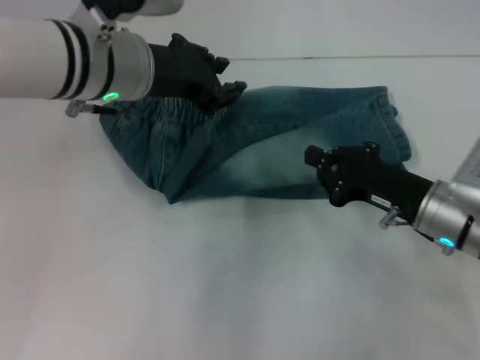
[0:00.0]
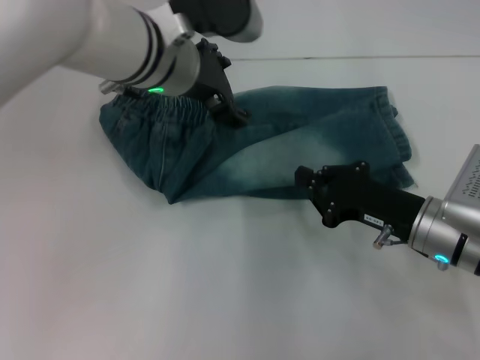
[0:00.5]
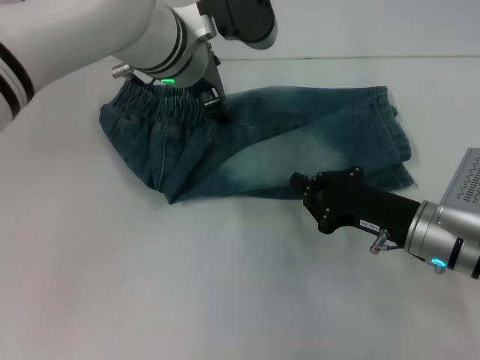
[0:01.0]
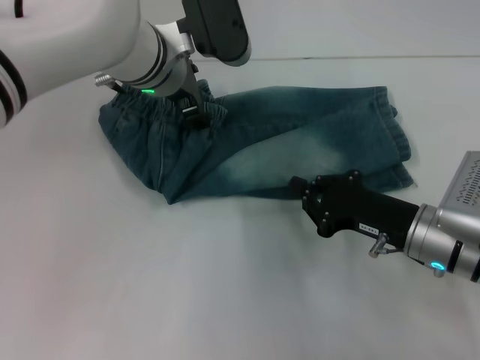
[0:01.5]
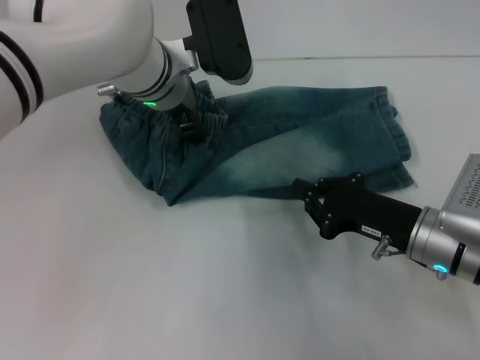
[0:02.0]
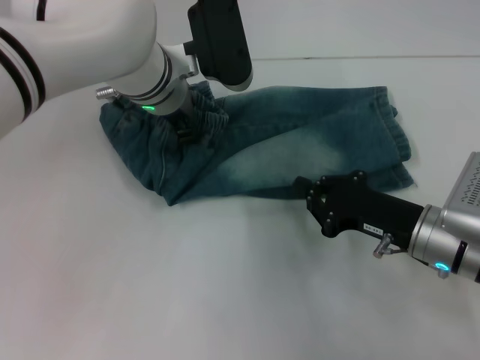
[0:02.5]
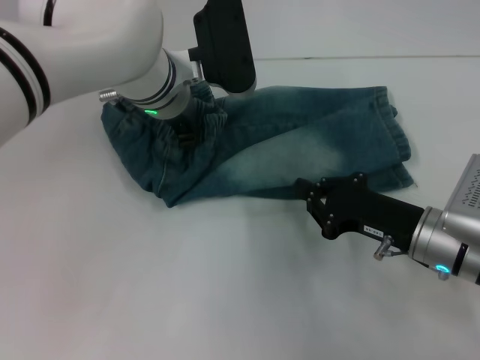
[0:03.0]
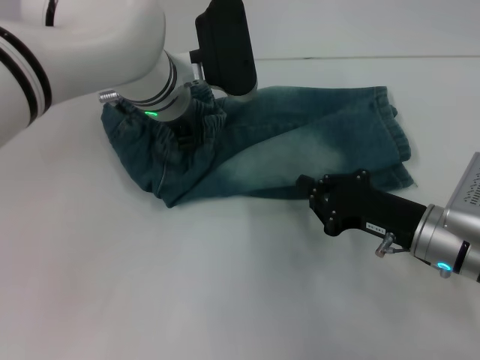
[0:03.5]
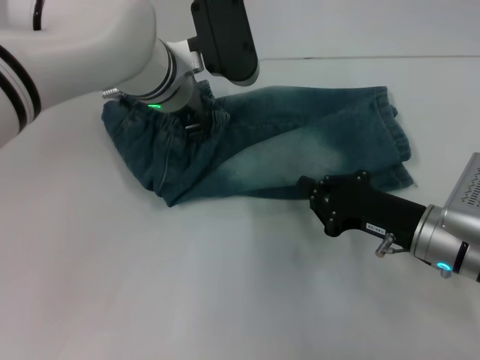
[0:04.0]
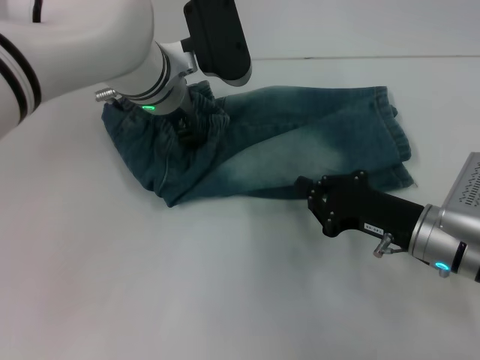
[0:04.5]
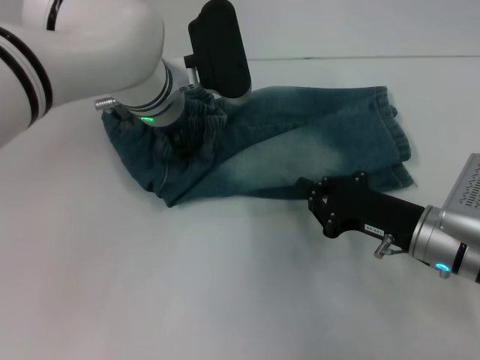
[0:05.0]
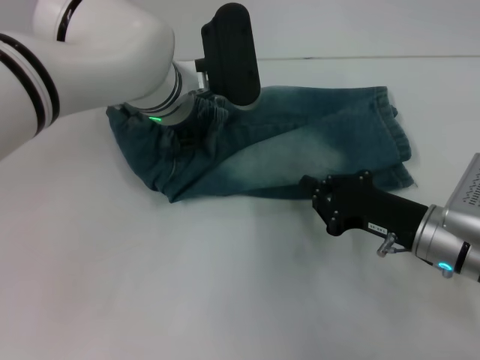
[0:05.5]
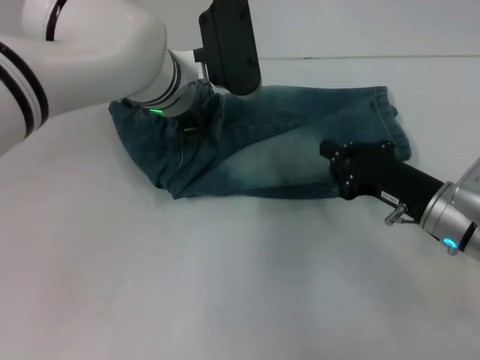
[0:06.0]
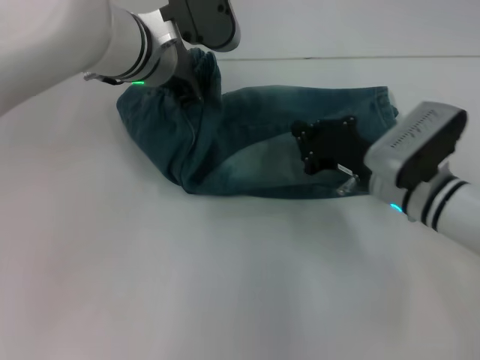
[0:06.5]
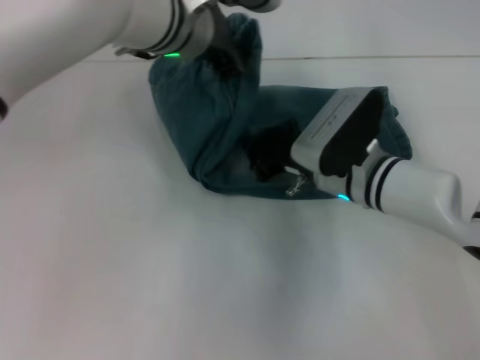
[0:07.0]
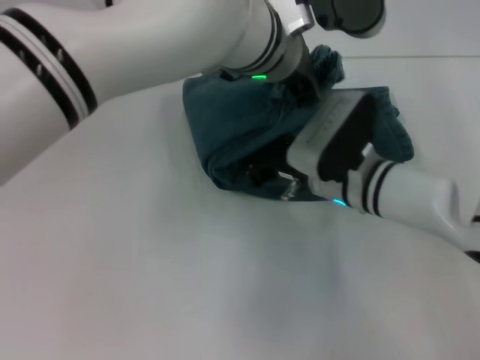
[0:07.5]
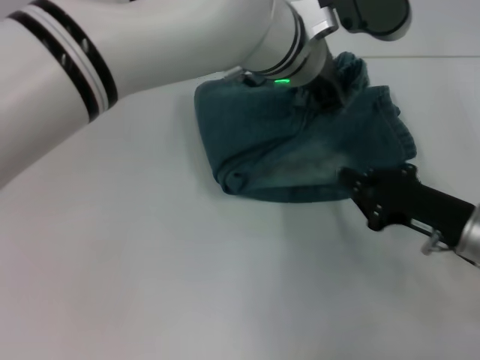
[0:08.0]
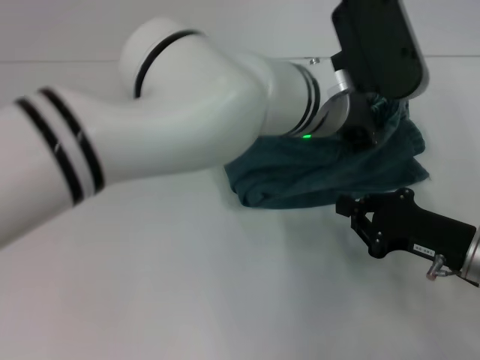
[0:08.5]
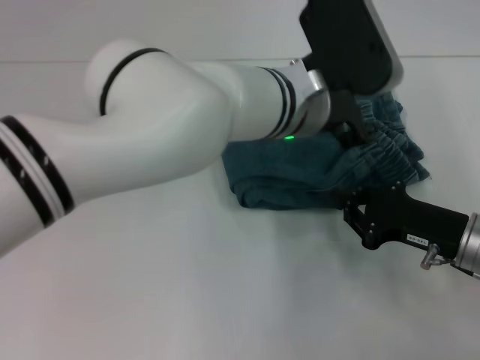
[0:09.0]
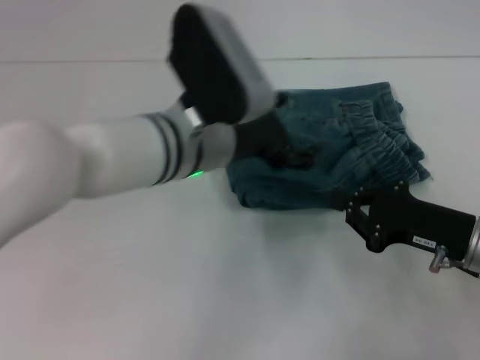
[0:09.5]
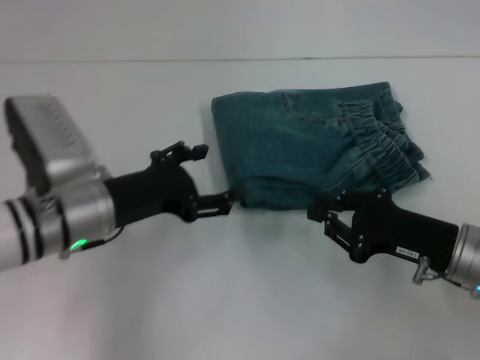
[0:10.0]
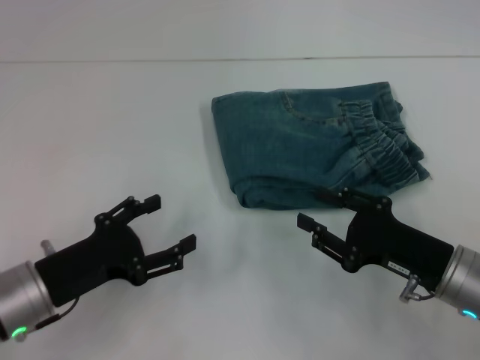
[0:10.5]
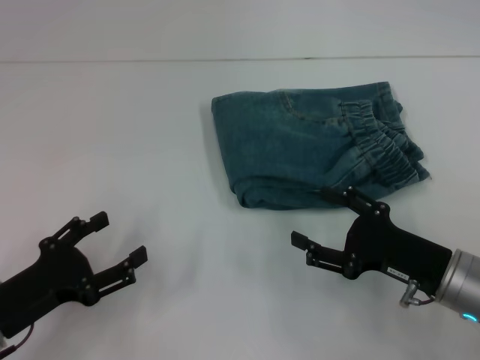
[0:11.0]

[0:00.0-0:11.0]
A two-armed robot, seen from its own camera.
Step, 0:00.0 to 0:06.0: Hold the waistband with your left hand.
Step, 0:06.5 to 0:07.5: Press the middle of the pants with your right hand.
Step, 0:08.0 to 0:09.0: Fold to the right with your left hand.
0:00.0 to 0:02.0: The left gripper heads forward and downward, covering some 10 cm, and opens.
0:02.0 to 0:03.5: The left gripper closes up.
0:03.5 to 0:05.5: The left gripper opens, then closes once more.
0:05.5 to 0:07.5: The left gripper travels to the right and upward by about 10 cm, while the right gripper goes some 10 cm to the left and forward.
0:07.5 to 0:09.0: The left gripper ends up roughly 5 cm from where it was, and opens, while the right gripper moves to the right and backward, about 15 cm.
0:09.0 to 0:11.0: The right gripper opens its fingers, while the left gripper travels to the left, backward and downward by about 35 cm, and opens.
